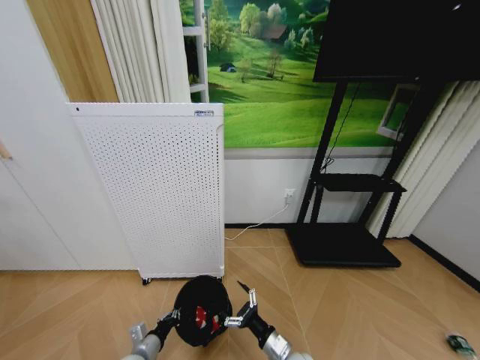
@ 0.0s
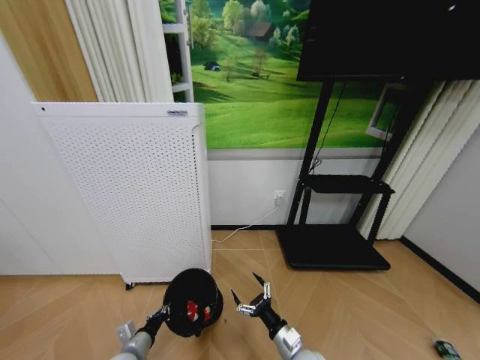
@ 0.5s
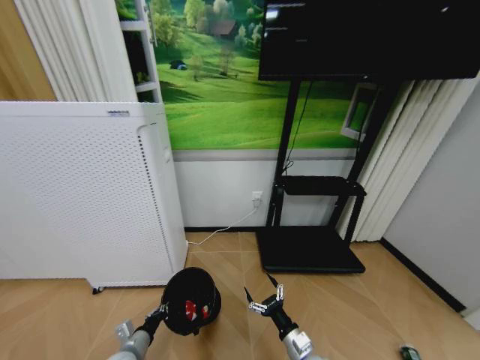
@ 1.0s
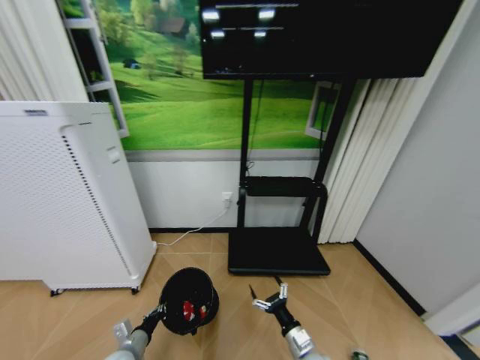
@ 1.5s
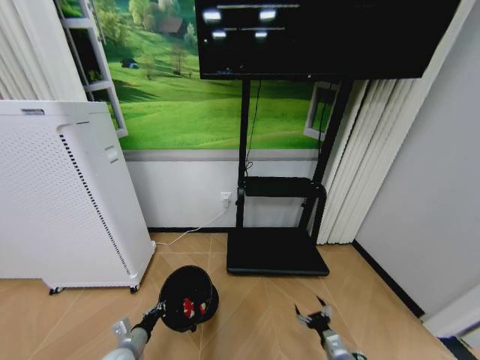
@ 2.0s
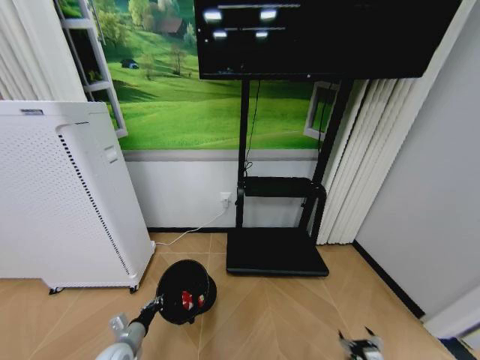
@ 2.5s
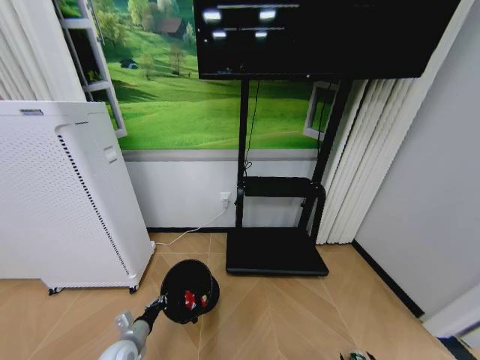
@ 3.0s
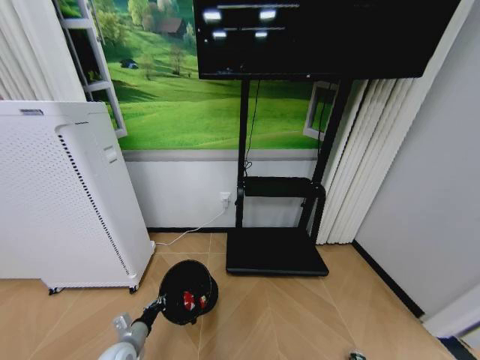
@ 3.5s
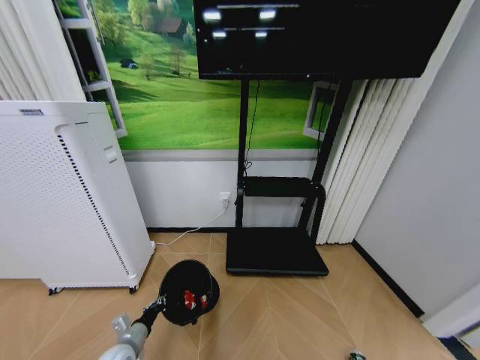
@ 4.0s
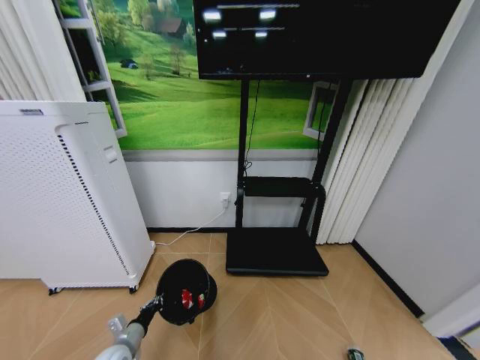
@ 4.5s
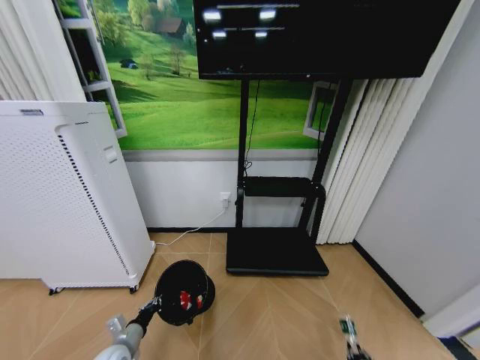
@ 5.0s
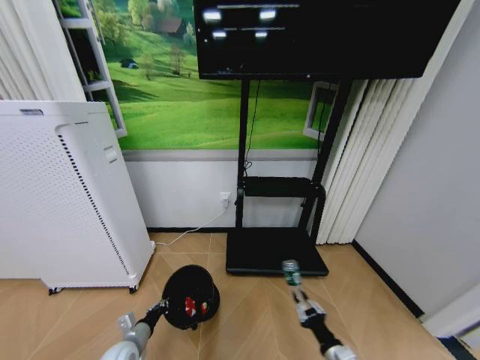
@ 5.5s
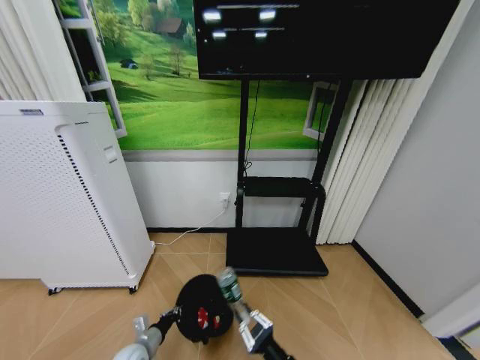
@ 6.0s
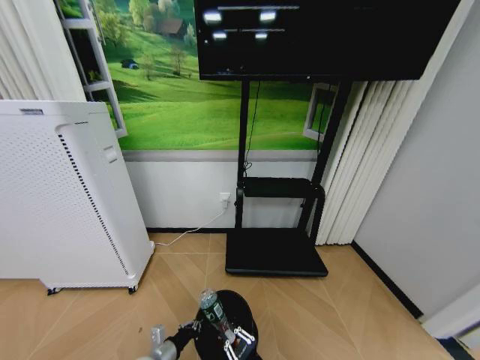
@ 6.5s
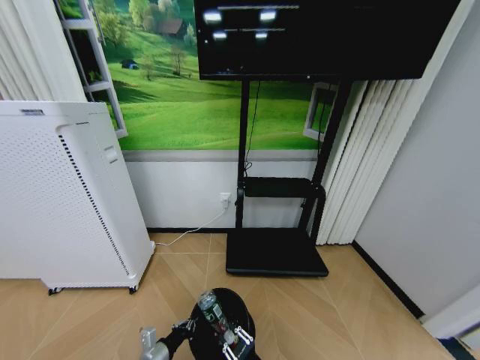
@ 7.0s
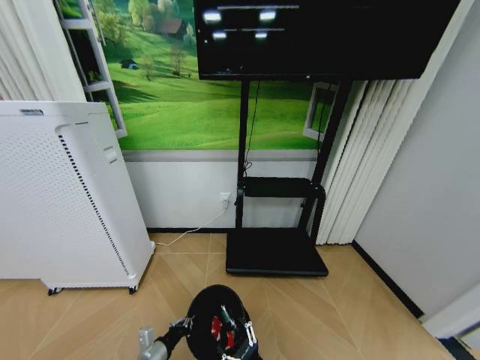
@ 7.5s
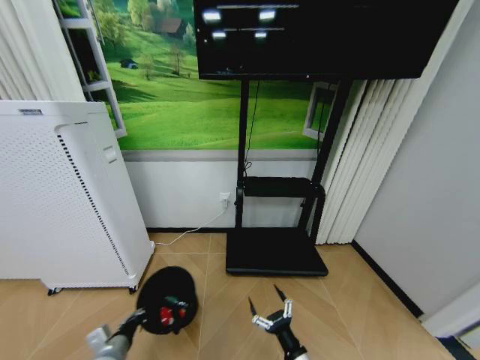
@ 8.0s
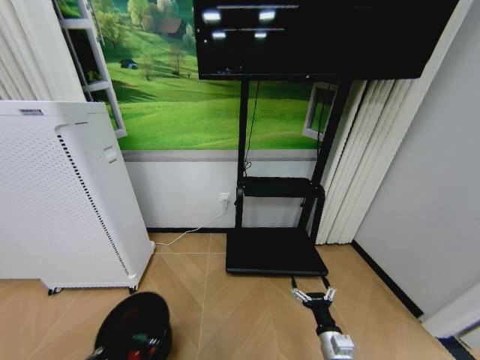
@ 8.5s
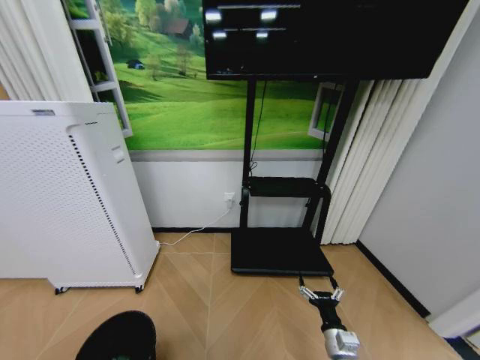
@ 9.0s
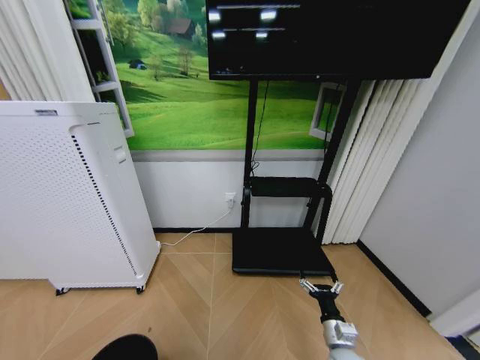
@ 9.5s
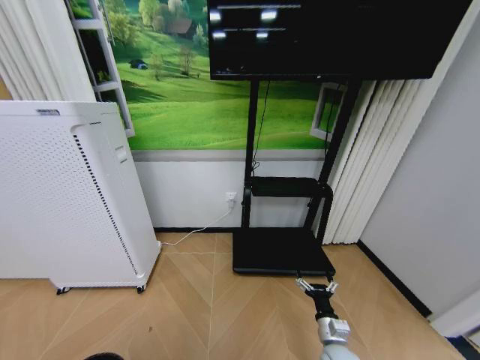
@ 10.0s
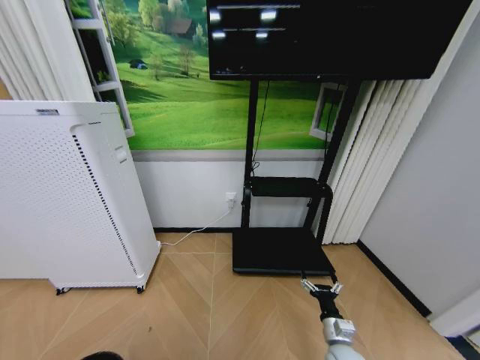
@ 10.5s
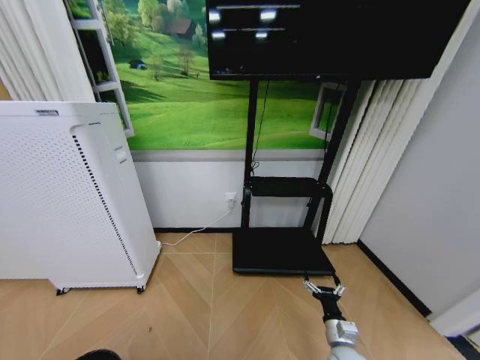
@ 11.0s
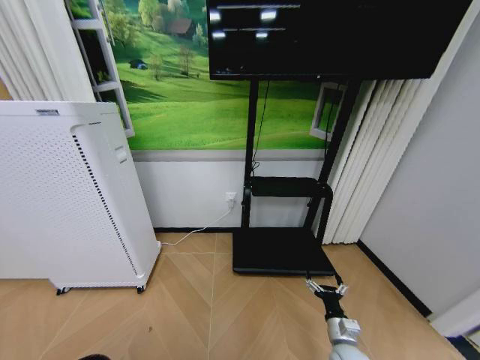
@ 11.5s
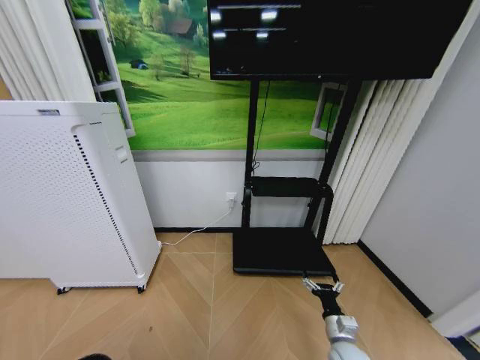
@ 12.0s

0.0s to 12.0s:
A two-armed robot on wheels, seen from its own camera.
Task of the whole recording: Pick up the trash bin and place the garbage on the floor into it.
0.0s to 2.0s: The right gripper moves to the right and downward, approximately 20 cm.
2.0s to 4.0s: The right gripper heads downward, to the right and backward, covering approximately 20 cm.
4.0s to 6.0s: The right gripper shifts approximately 40 cm to the left and upward, and closes up.
6.0s to 8.0s: The right gripper heads downward, covering some 5 cm, and opens up. Meanwhile the left gripper shifts approximately 10 cm upward.
8.0s to 10.0s: The left gripper moves backward, about 20 cm, while the right gripper travels to the right and forward by roughly 10 cm.

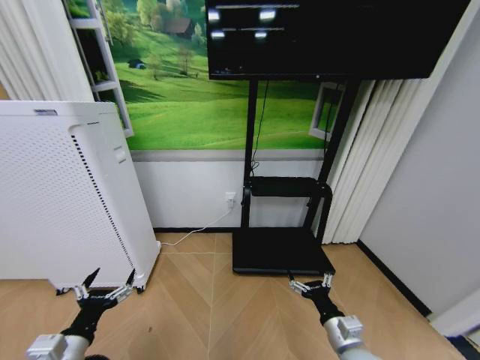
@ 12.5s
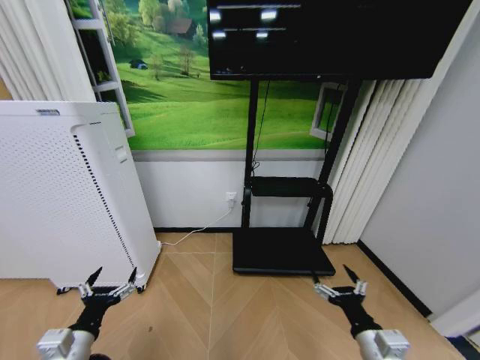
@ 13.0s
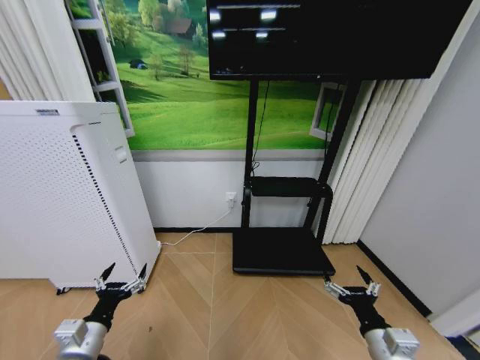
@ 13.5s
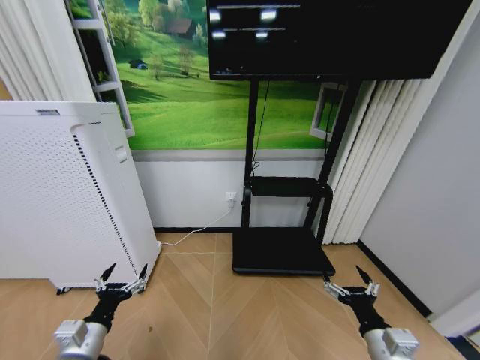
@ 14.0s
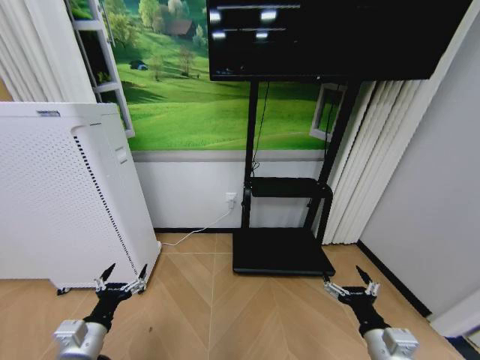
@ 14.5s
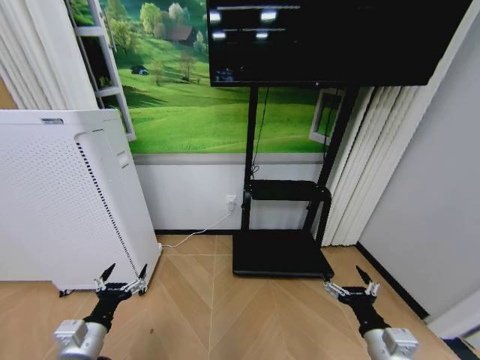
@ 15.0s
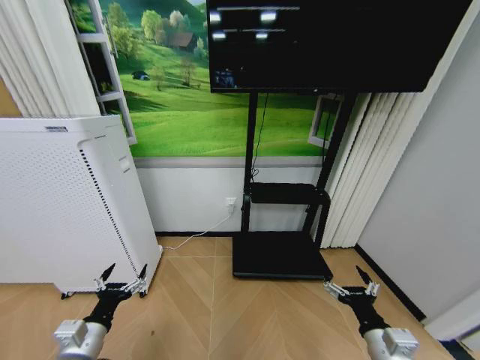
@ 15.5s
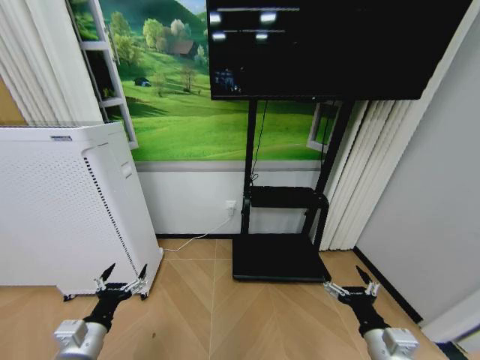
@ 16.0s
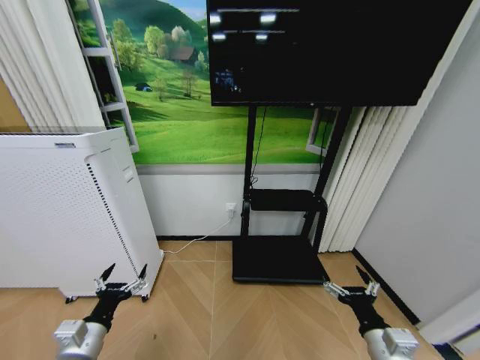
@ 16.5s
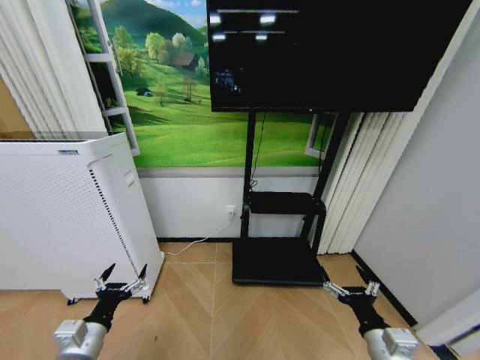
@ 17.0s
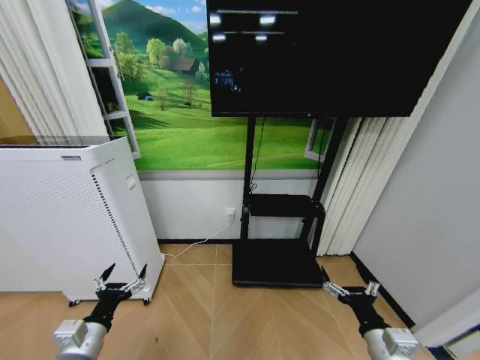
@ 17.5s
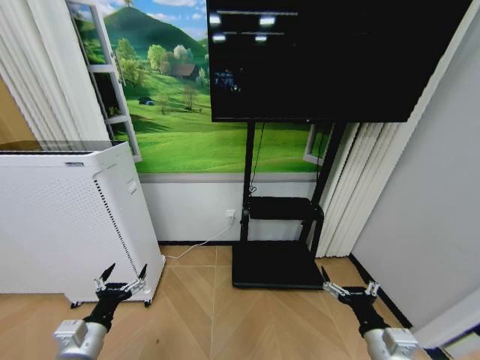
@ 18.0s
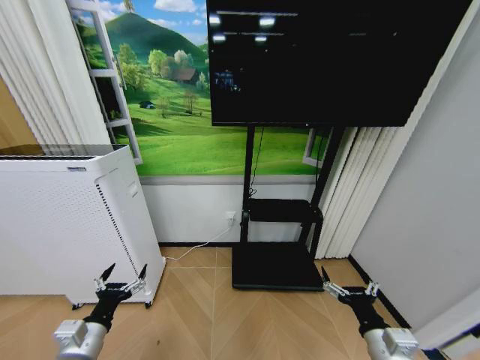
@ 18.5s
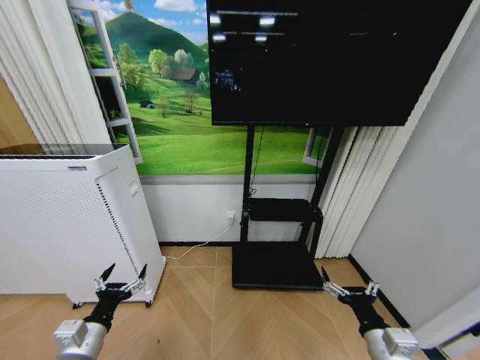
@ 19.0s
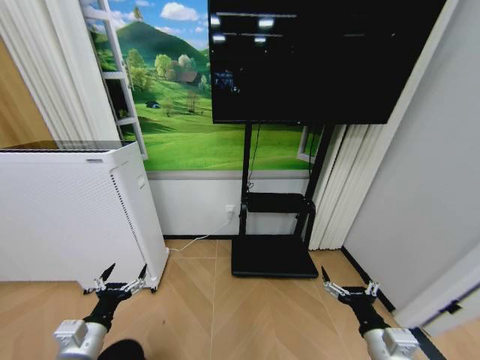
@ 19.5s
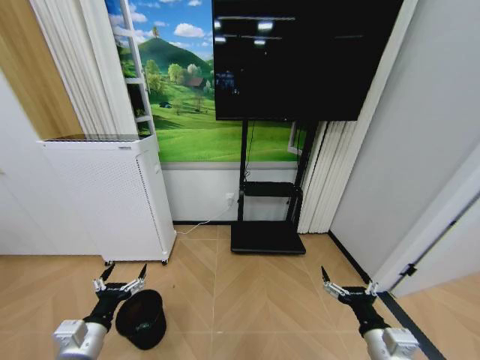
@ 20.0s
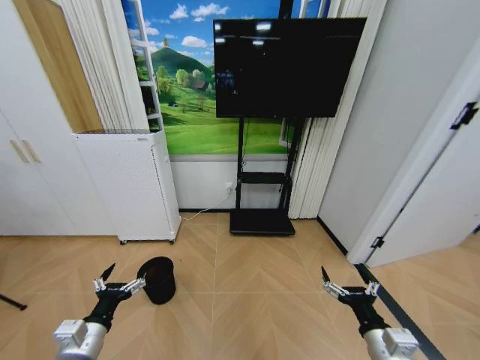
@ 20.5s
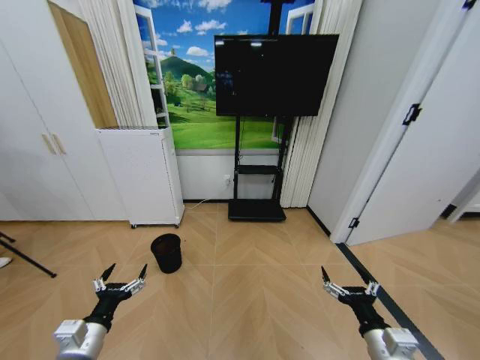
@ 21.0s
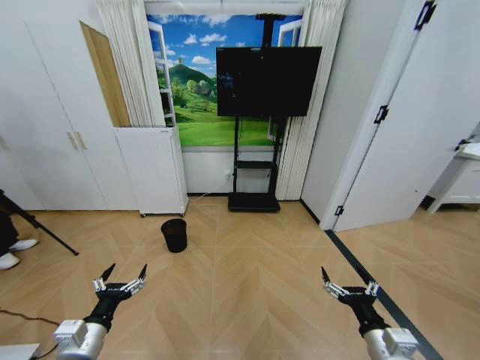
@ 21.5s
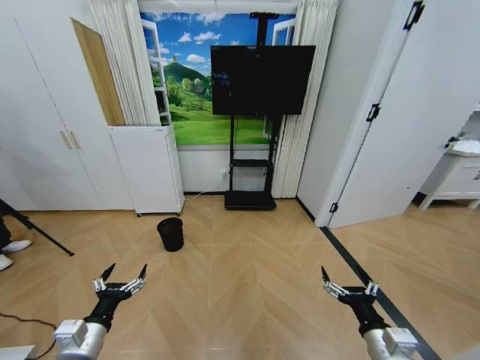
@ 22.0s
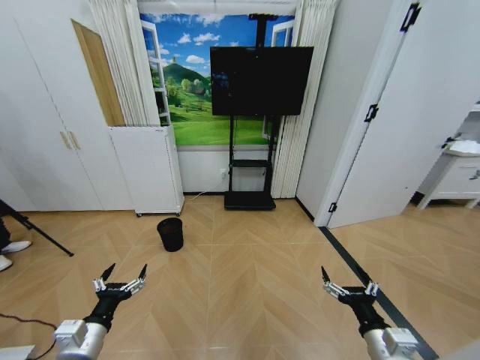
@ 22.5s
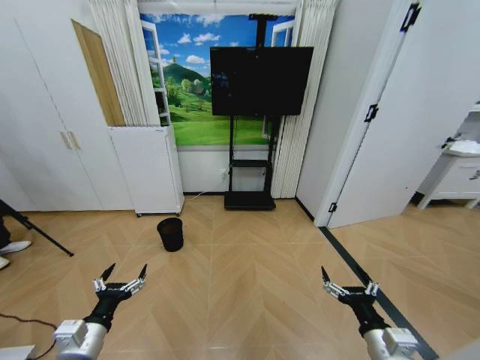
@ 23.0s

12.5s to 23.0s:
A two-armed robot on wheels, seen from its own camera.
Task of the whole recording: Pick up the trash bin and place the garbage on the floor into it.
12.5s to 14.5s: The right gripper shifts about 5 cm upward.
16.5s to 19.0s: Neither gripper changes place.
